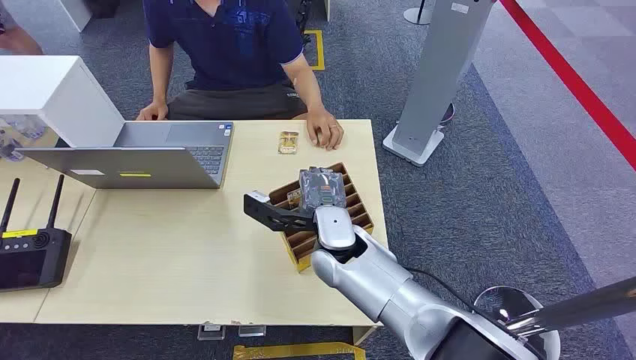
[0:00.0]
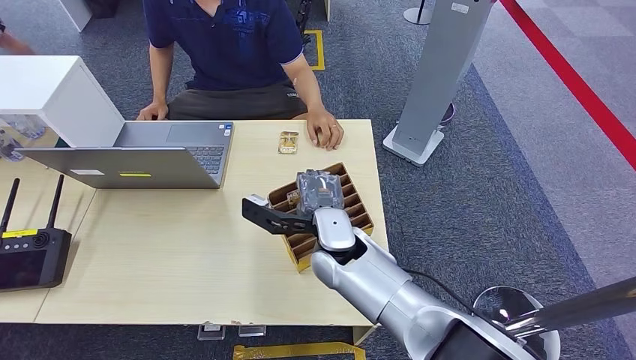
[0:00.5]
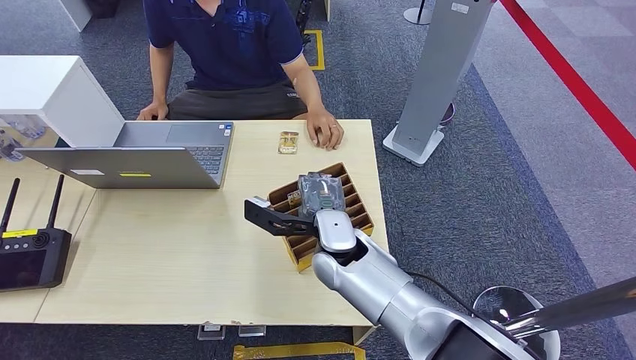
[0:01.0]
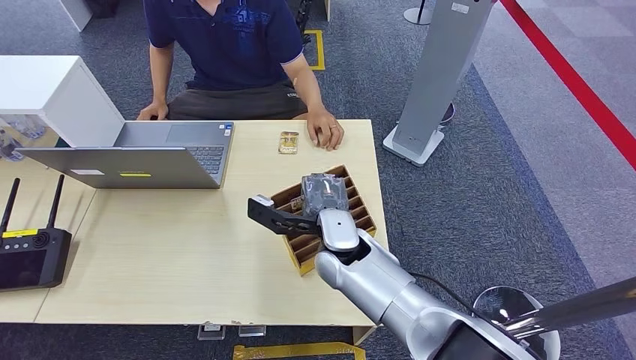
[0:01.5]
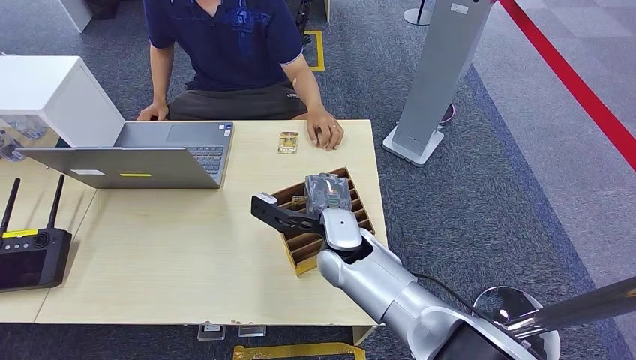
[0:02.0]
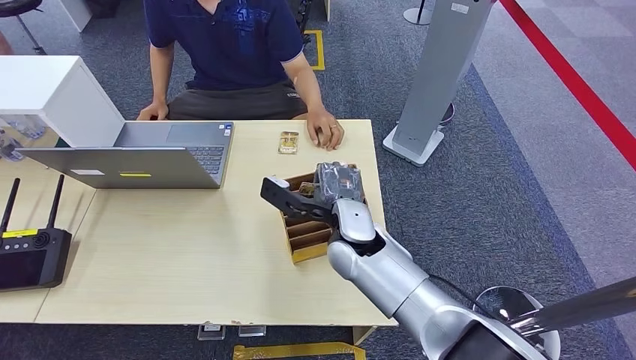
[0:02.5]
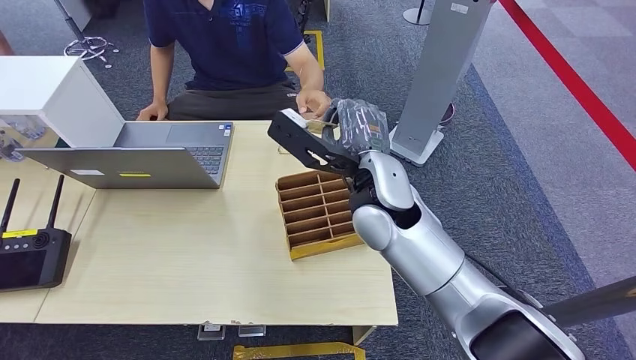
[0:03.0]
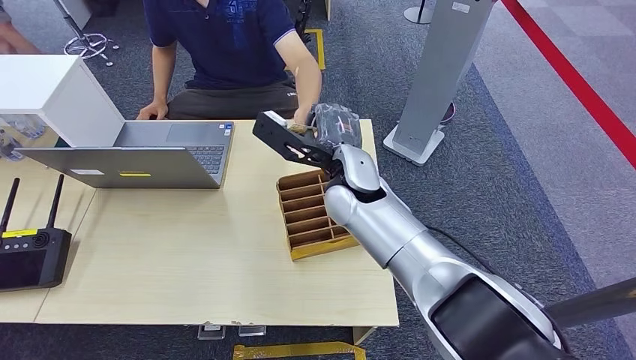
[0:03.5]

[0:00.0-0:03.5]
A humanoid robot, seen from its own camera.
Step, 0:00.0 to 0:02.0: Pick up the key card from the card box.
Step, 0:03.0 to 0:03.5: Hand the key card to the target.
0:02.0 to 0:03.5: The right hand travels upward and forward by some 10 cm.
